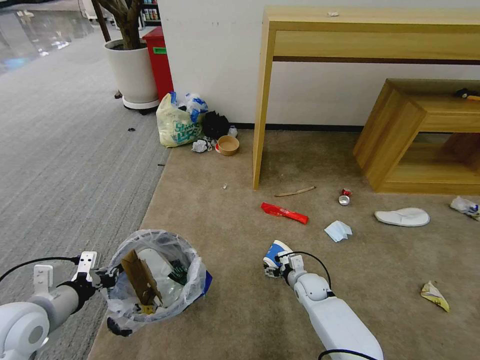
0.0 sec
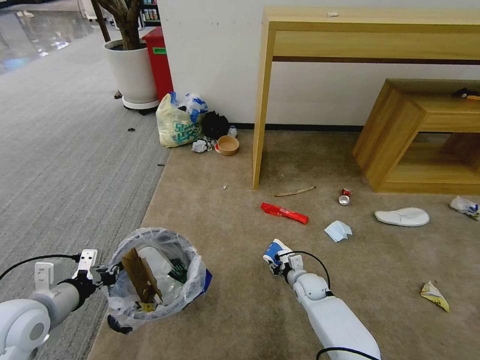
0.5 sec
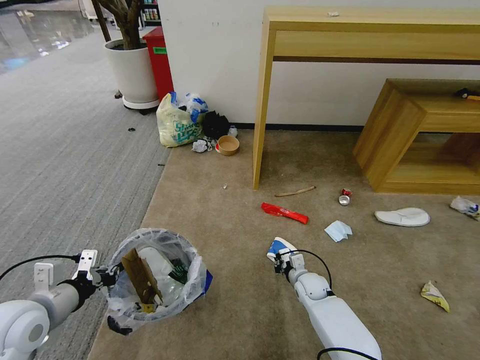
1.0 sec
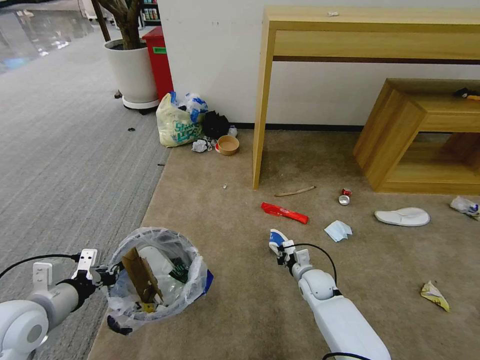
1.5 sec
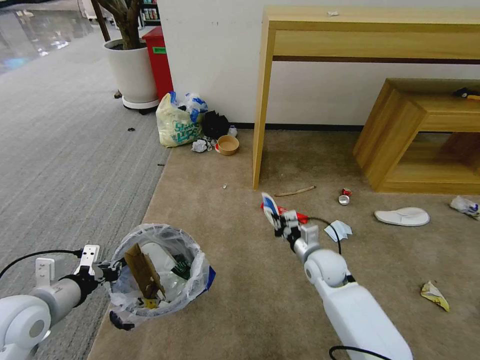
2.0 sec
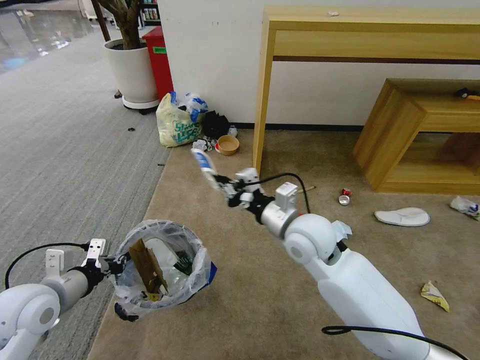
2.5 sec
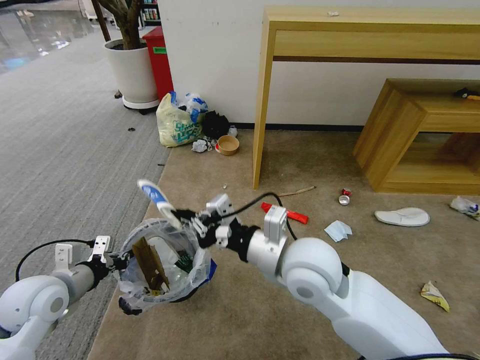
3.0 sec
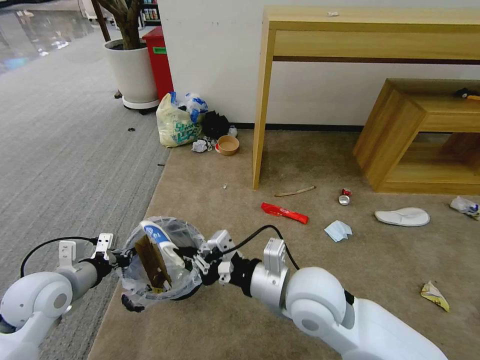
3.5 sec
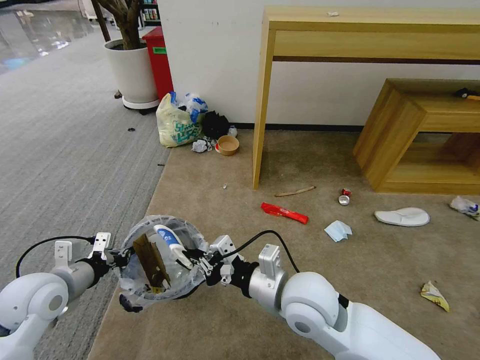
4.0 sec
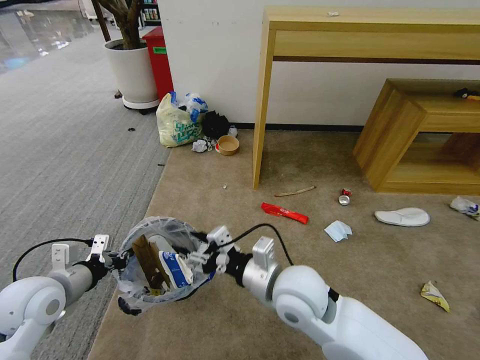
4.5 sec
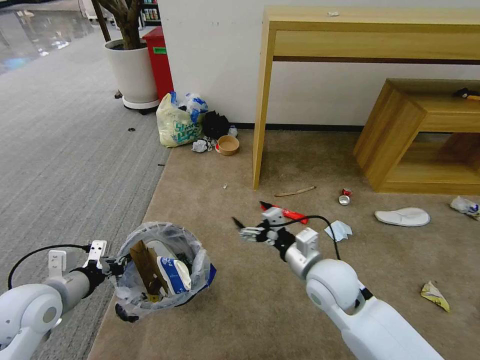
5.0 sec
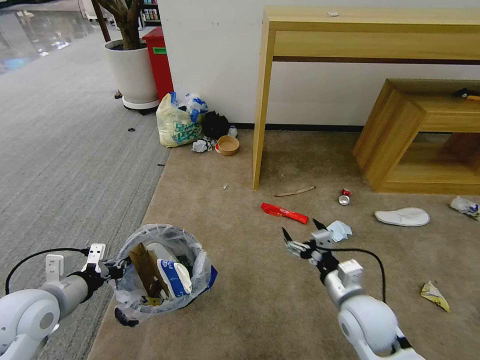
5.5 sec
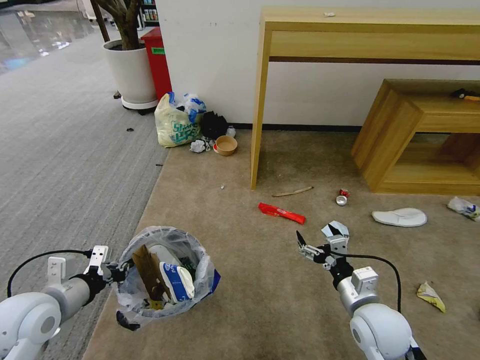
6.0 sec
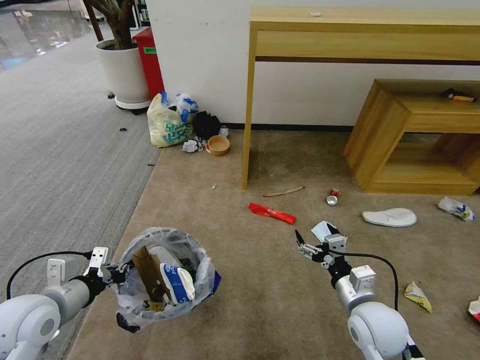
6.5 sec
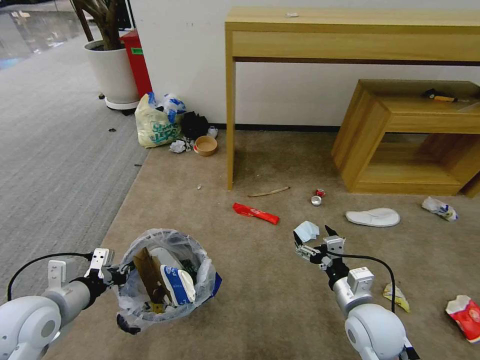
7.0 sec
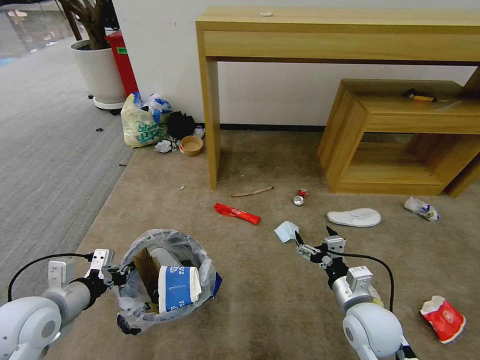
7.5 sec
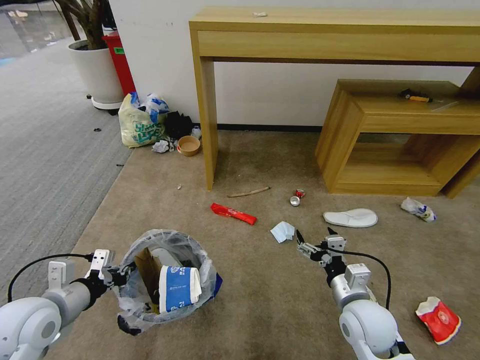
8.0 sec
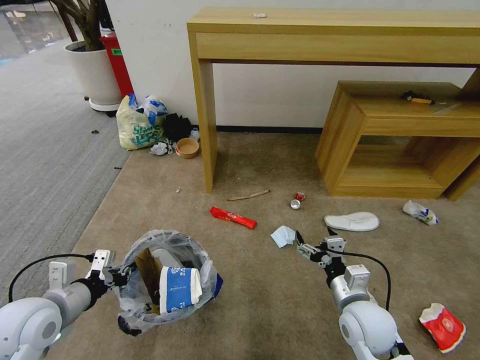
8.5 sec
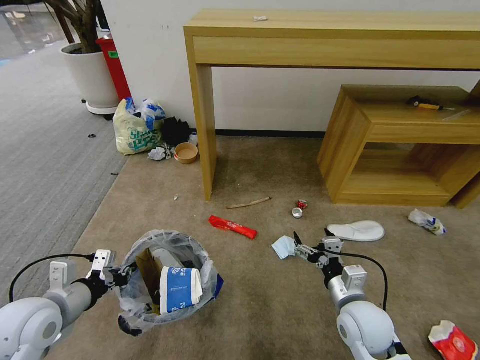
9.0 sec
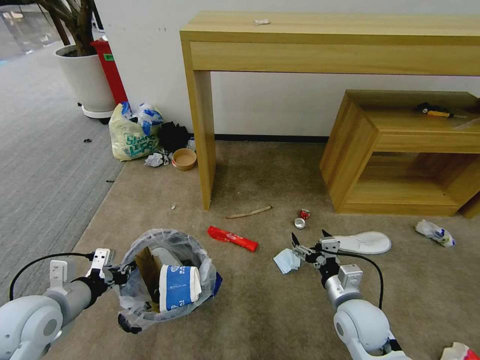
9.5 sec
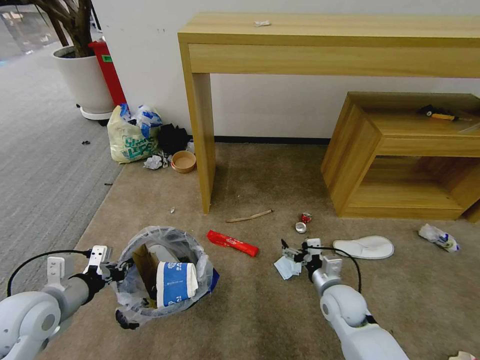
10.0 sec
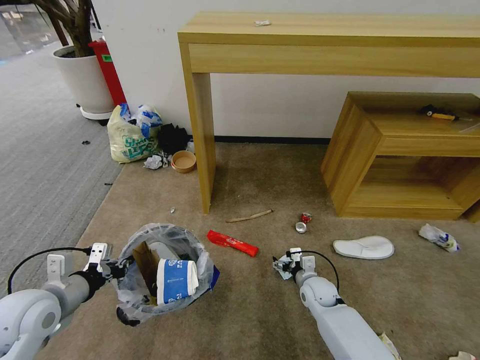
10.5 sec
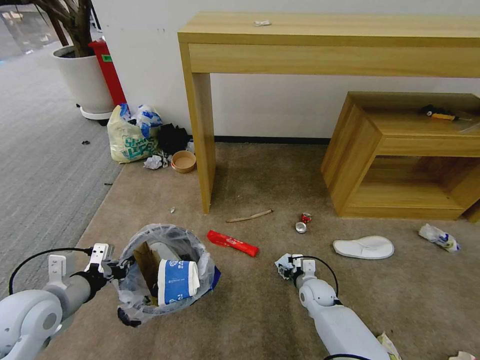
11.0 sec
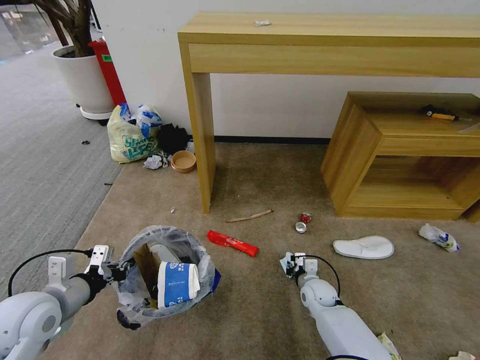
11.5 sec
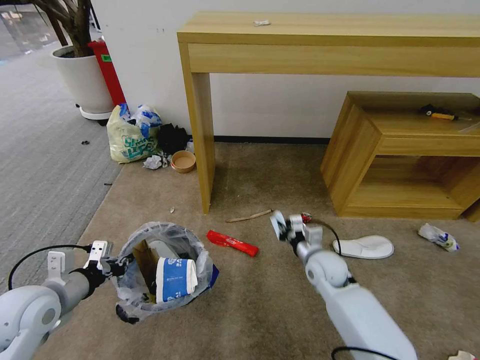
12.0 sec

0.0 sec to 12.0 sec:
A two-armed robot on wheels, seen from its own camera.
Task of the whole recording: Pick up the trash bin and place the garbage on the floor into it.
0.0 sec to 2.0 sec: The right gripper goes some 15 cm upward, and closes its fingers.
2.0 sec to 4.0 sec: The right gripper travels upward, backward and to the left by roughly 20 cm.
4.0 sec to 6.0 sec: The right gripper shifts roughly 20 cm to the right and downward, and opens its fingers.
8.0 sec to 10.0 sec: The right gripper goes approximately 10 cm downward and forward.
10.0 sec to 12.0 sec: The right gripper travels forward by approximately 10 cm, travels downward and back again, roughly 10 cm each way, and closes up.

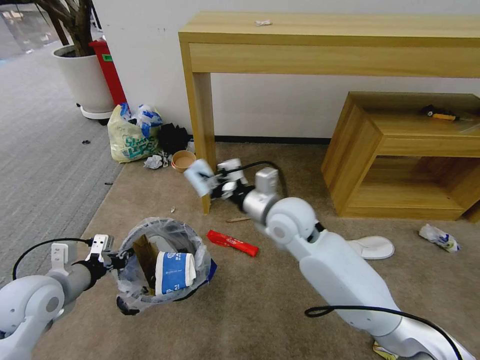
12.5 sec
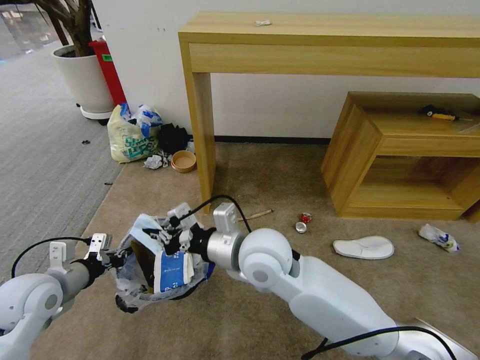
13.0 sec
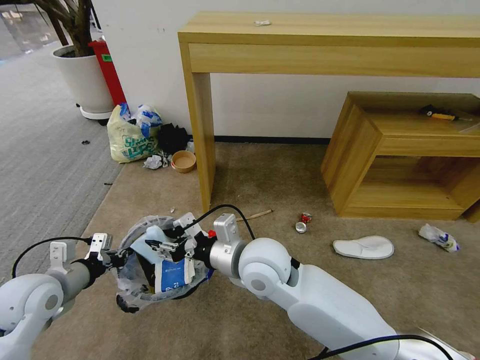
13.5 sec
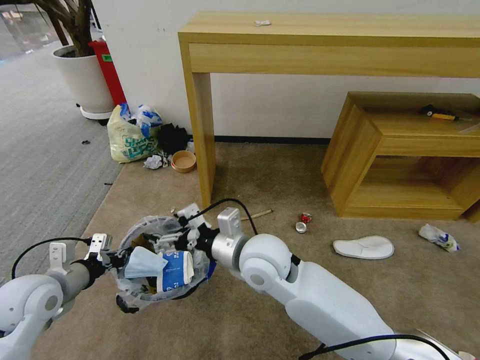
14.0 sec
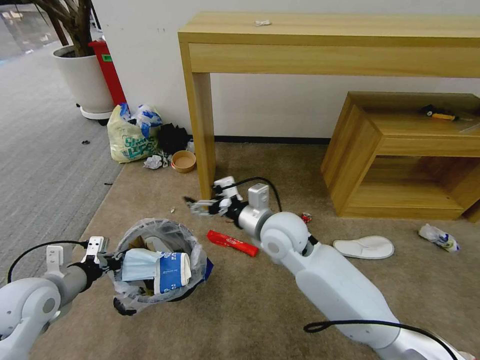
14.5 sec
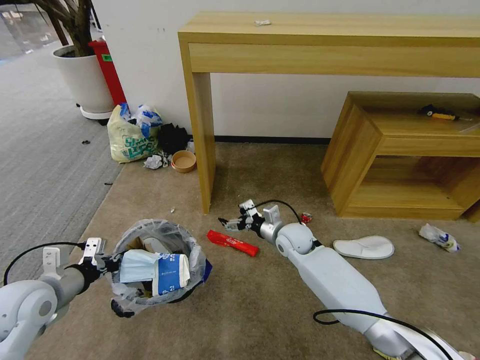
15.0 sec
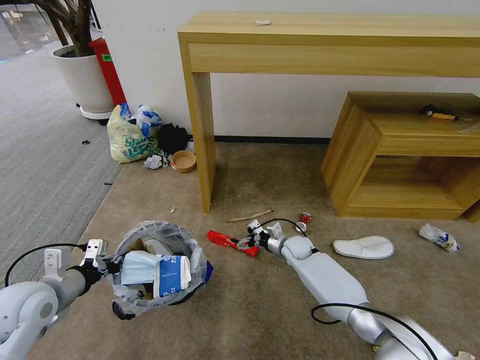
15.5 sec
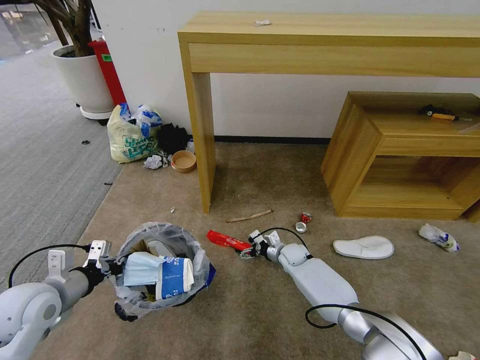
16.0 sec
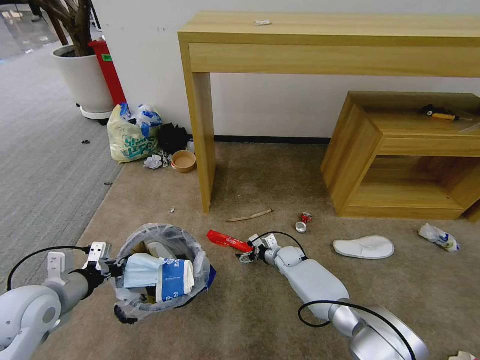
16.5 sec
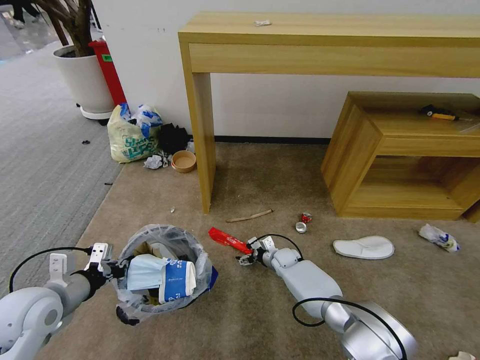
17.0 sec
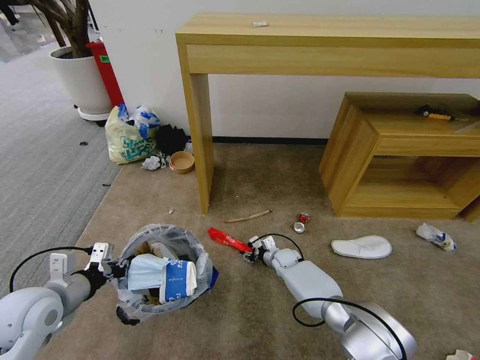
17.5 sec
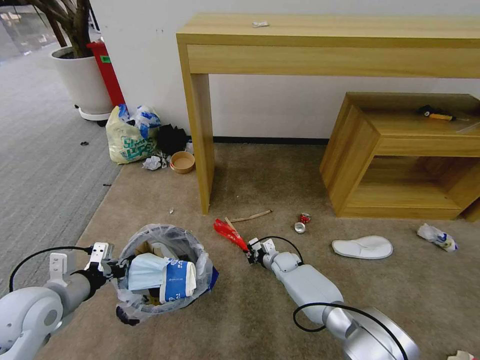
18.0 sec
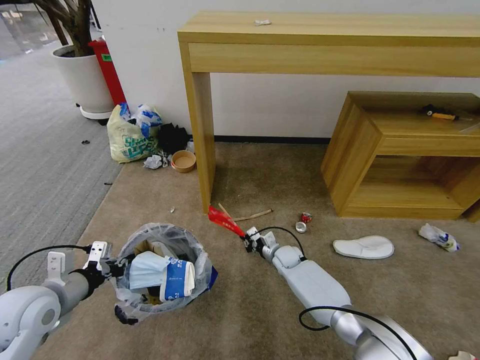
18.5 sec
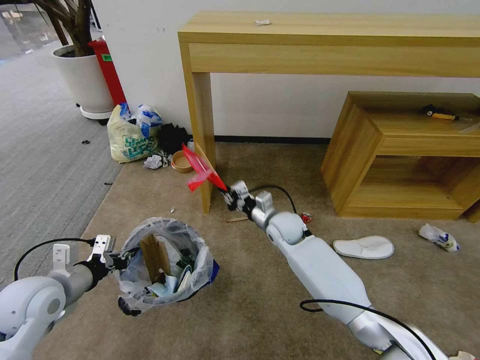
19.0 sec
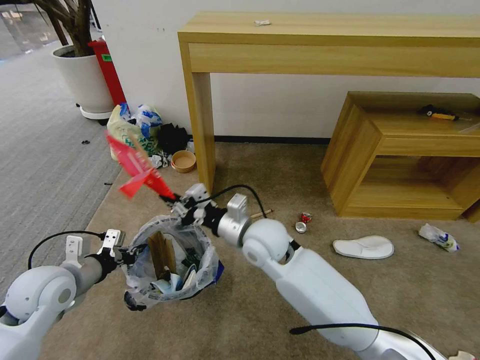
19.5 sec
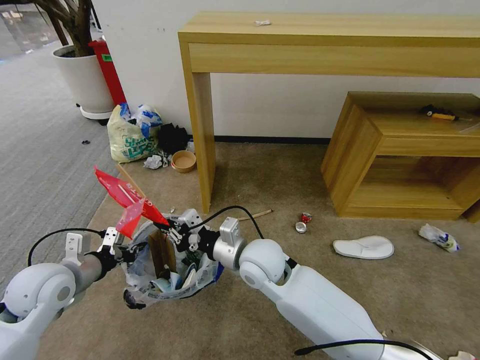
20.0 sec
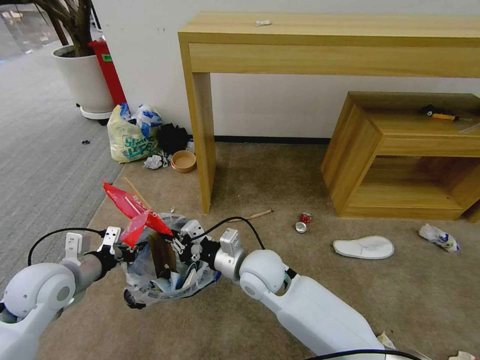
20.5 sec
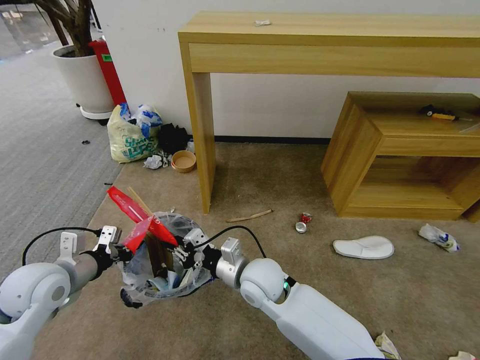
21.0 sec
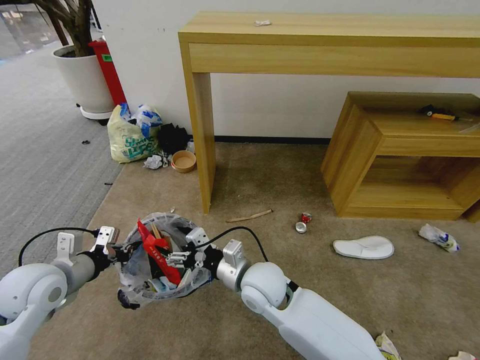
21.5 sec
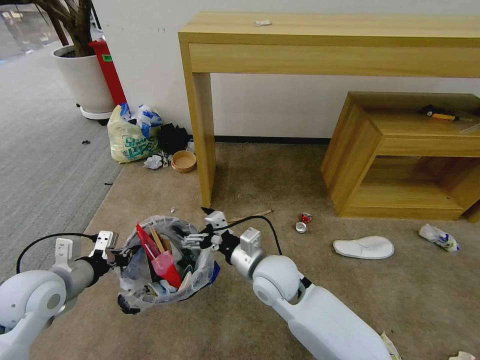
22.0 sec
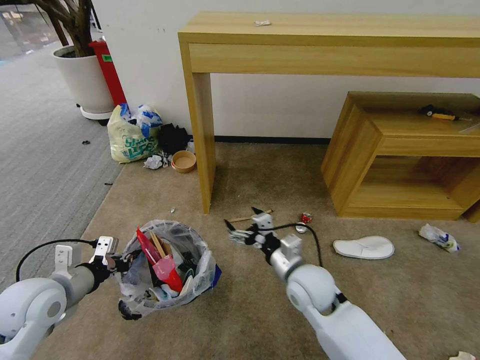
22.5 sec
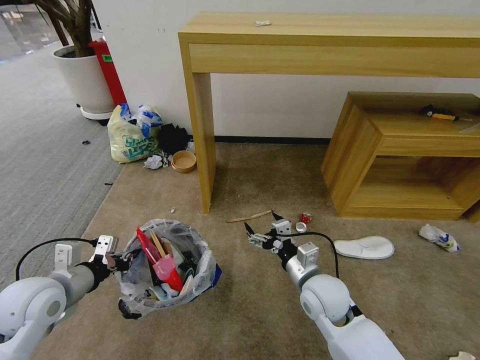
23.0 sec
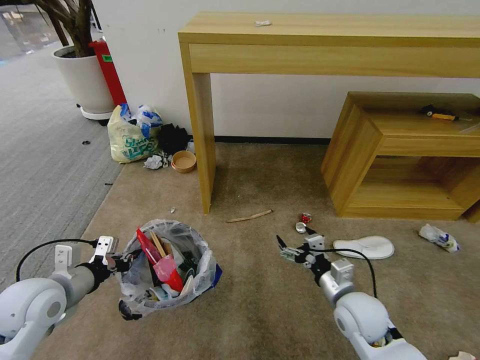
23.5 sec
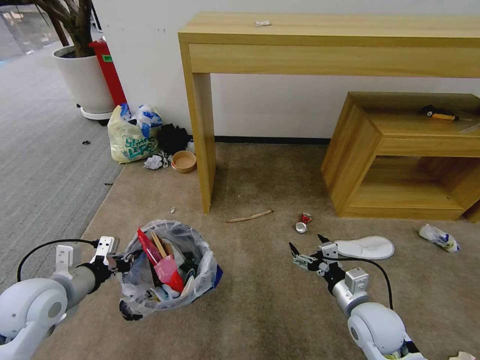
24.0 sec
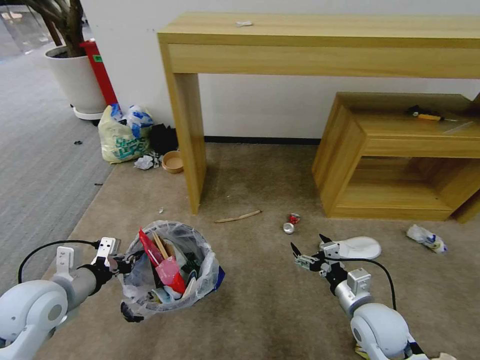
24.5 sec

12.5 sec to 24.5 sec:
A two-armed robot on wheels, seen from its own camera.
Task of the whole recording: Pick up the trash bin and place the garbage on the floor into it.
12.5 sec to 14.5 sec: The right gripper reaches some 10 cm backward, then returns, and opens its fingers.
14.5 sec to 16.5 sec: The right gripper moves downward, approximately 30 cm.
16.5 sec to 18.5 sec: The right gripper closes.
18.5 sec to 20.5 sec: The right gripper is displaced upward, backward and to the left by some 30 cm.
20.5 sec to 22.5 sec: The right gripper shifts about 10 cm to the right, and opens its fingers.
22.5 sec to 24.5 sec: The right gripper shifts some 15 cm to the right and backward.

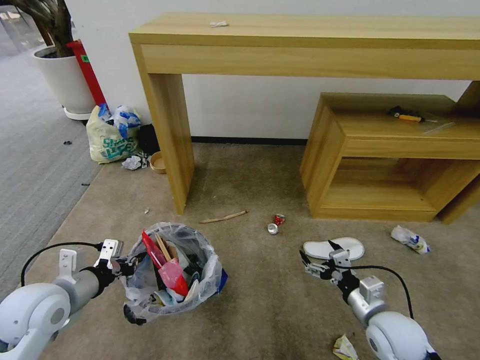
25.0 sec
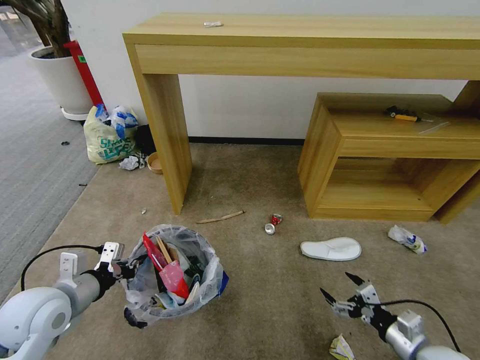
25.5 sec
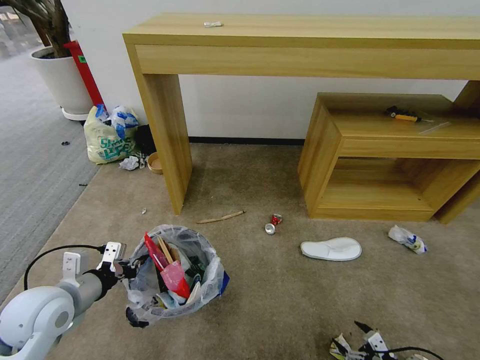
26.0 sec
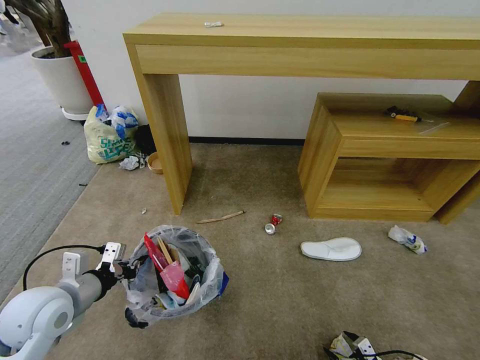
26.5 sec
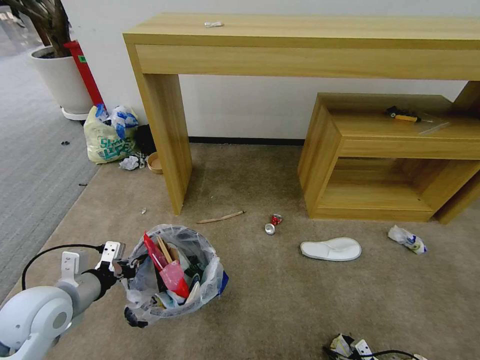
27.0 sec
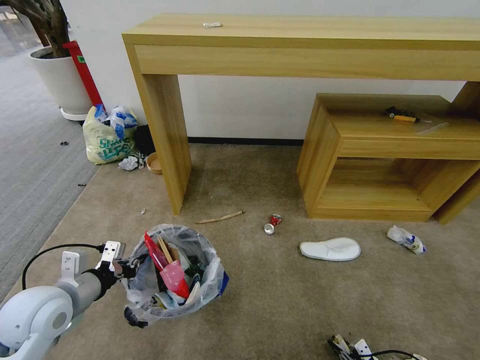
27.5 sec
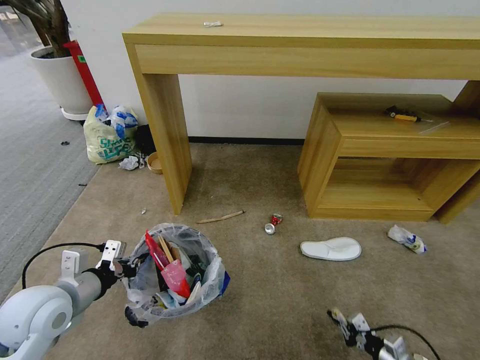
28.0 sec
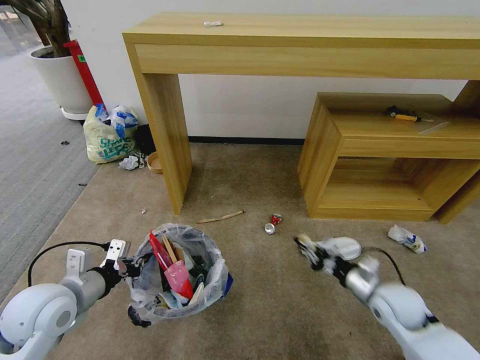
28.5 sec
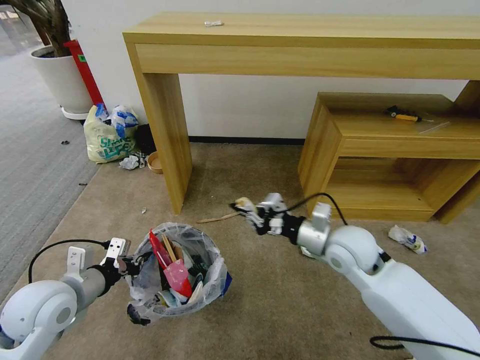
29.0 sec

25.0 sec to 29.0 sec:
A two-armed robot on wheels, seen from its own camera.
Task of the whole recording: Pick up the trash bin and place the garbage on the floor into it.
25.0 sec to 27.0 sec: The right gripper travels downward, to the right and backward by some 25 cm.
27.0 sec to 29.0 sec: The right gripper travels upward, forward and to the left by roughly 50 cm, and closes.
